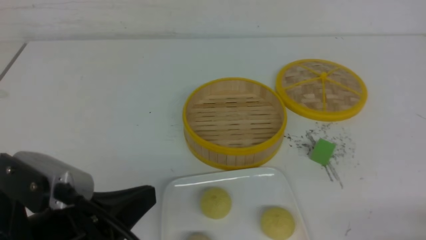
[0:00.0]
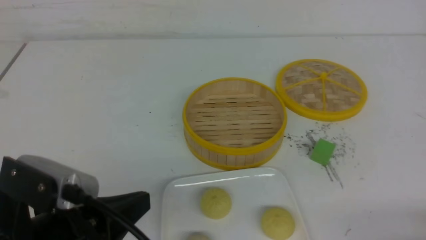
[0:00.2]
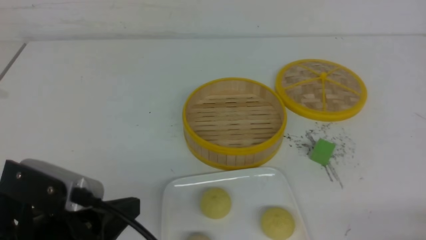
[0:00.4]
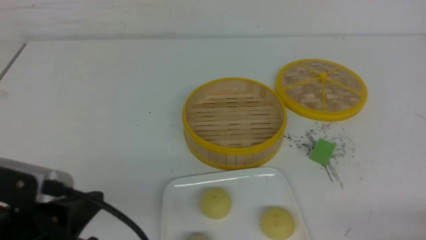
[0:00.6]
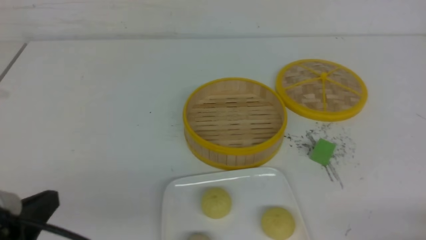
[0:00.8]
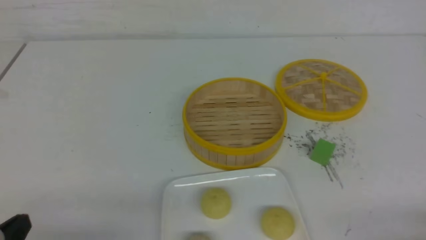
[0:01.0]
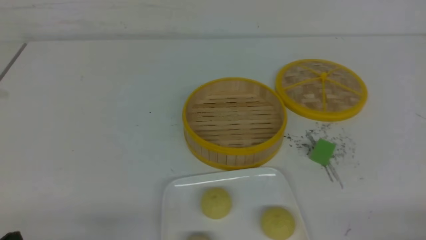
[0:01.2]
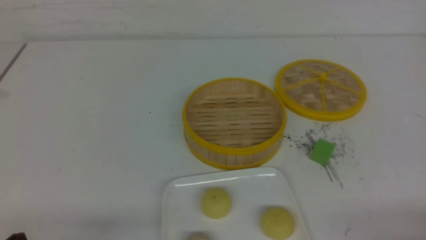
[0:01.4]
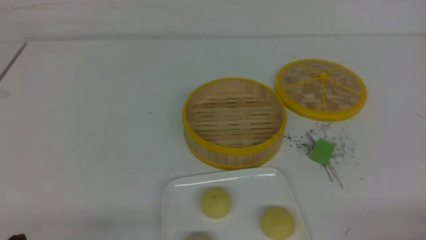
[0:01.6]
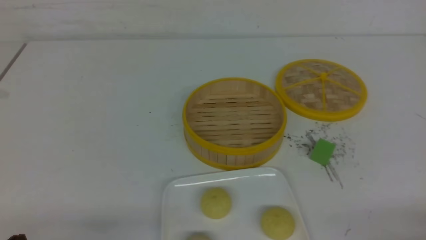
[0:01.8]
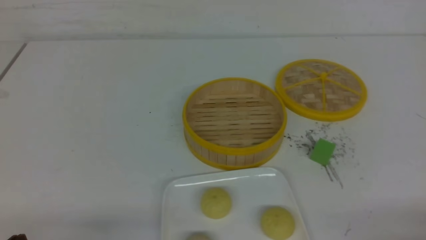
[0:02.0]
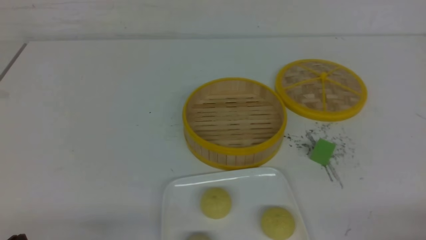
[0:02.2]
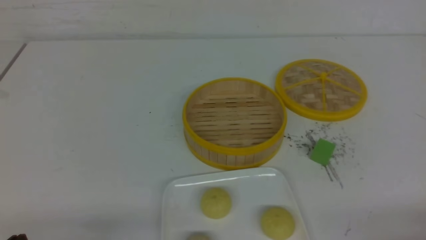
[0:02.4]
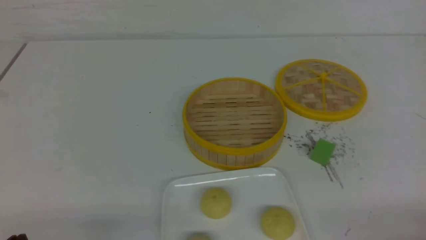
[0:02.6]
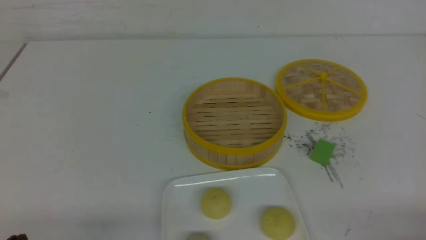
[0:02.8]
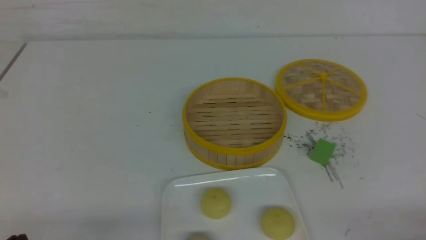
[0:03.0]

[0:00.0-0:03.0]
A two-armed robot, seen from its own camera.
0:00.0 to 0:01.6: The left gripper heads downward and to the left, covering about 15 cm.
0:01.6 to 0:03.0: Both grippers stay about where they are.
